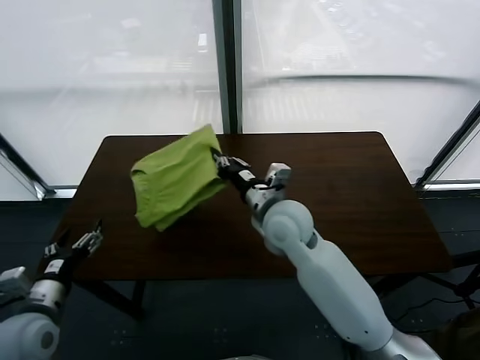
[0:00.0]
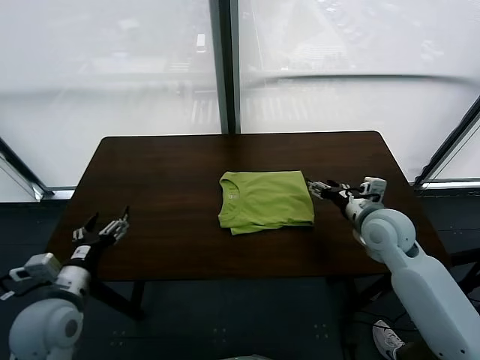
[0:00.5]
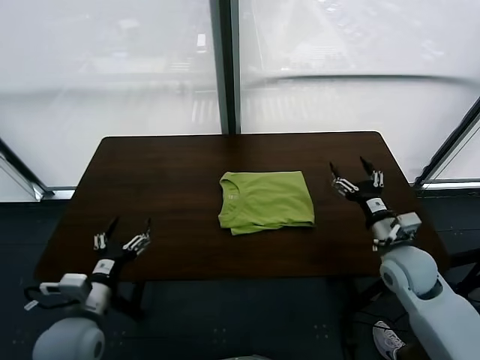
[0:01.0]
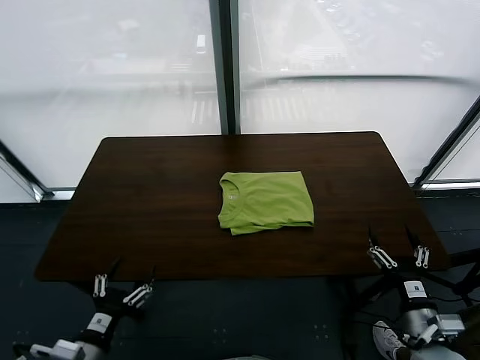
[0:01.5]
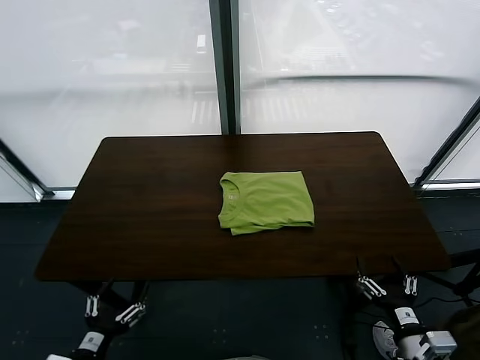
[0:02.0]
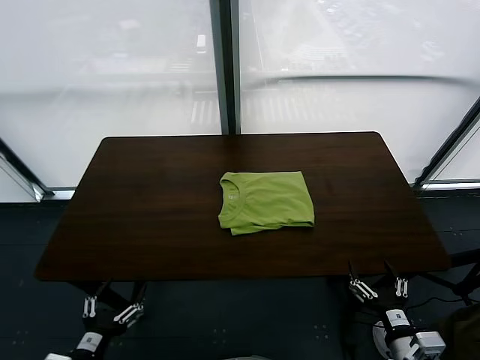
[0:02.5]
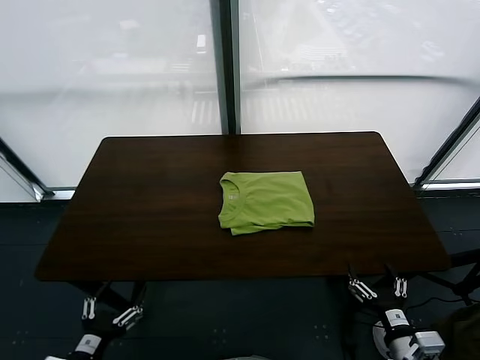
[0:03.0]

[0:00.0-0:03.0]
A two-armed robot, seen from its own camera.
Task of the whole recording: fold and organize the clothes.
0:00.0 to 0:01.5: The left gripper travels backward, downward and to the right by roughly 10 cm. Meanwhile the right gripper is displaced to the right, backward and downward by roughly 35 cm, and opens its fingers.
0:01.5 to 0:03.0: The right gripper goes some 5 cm backward.

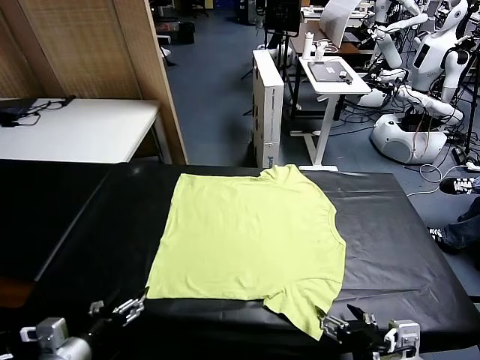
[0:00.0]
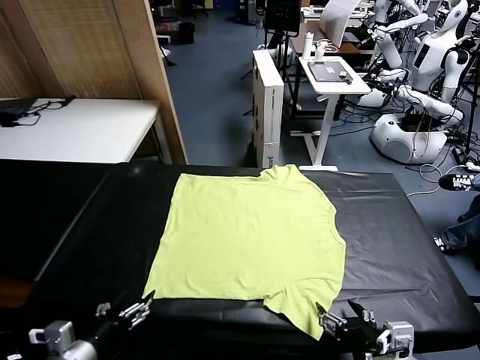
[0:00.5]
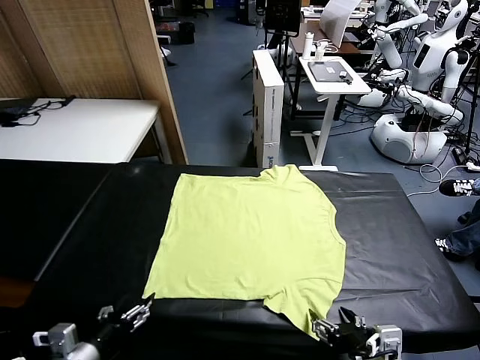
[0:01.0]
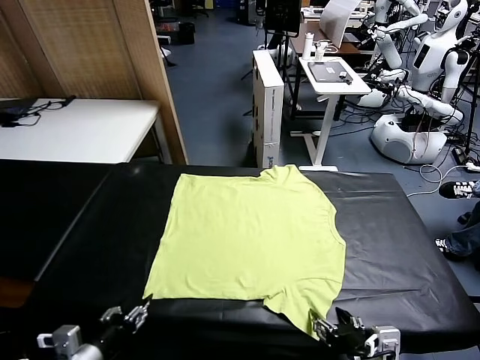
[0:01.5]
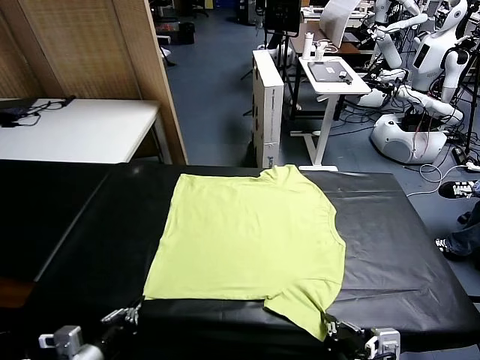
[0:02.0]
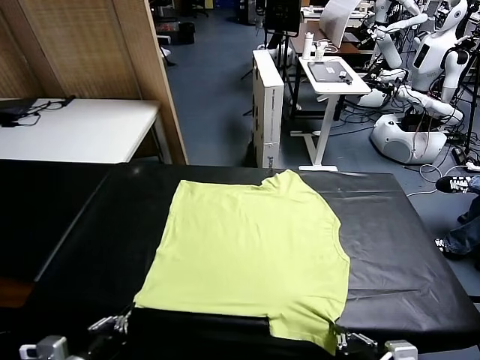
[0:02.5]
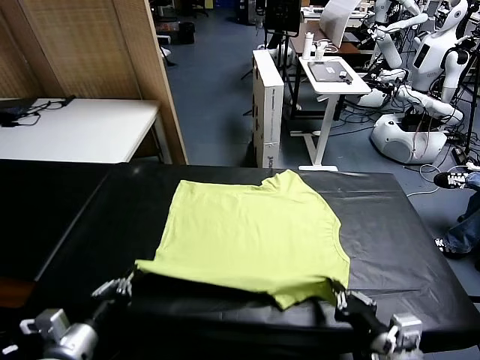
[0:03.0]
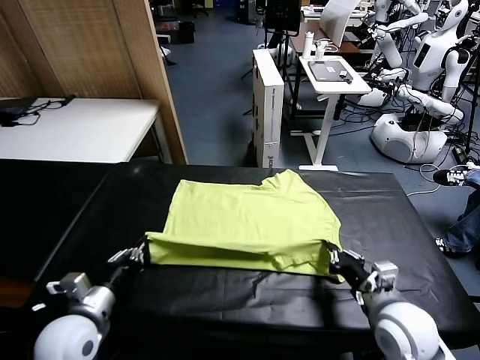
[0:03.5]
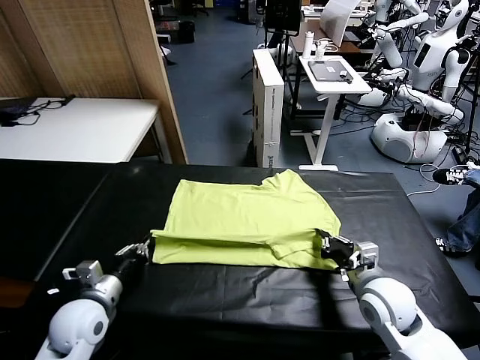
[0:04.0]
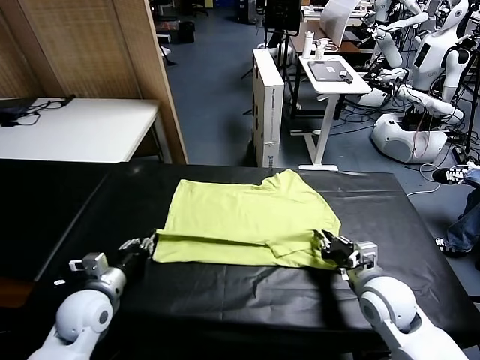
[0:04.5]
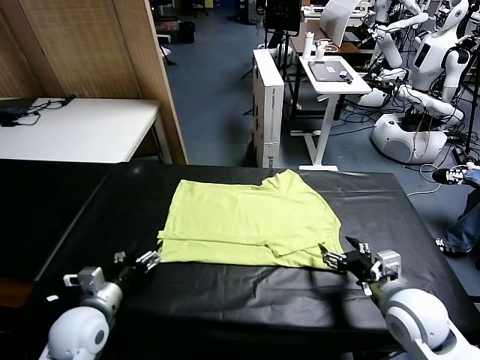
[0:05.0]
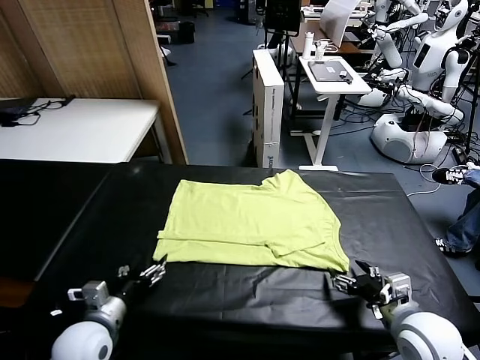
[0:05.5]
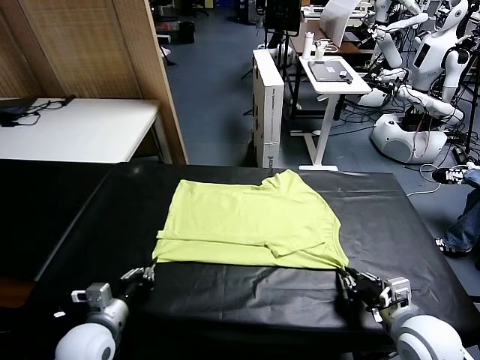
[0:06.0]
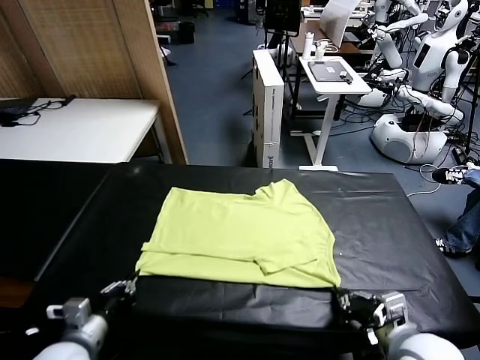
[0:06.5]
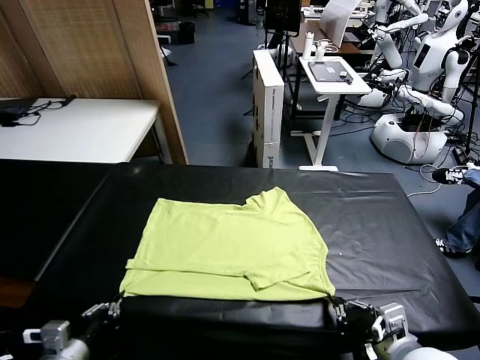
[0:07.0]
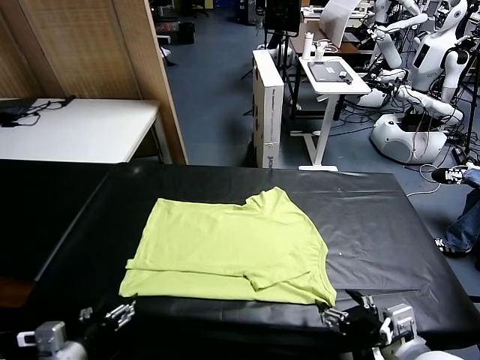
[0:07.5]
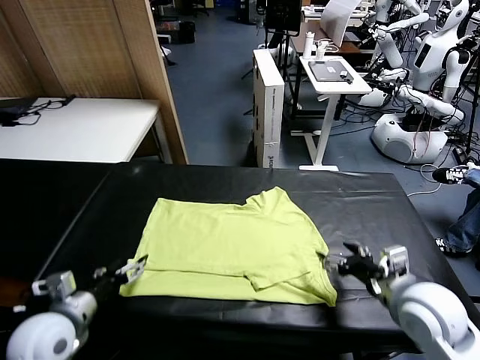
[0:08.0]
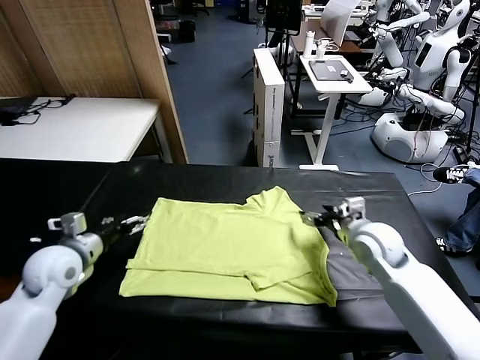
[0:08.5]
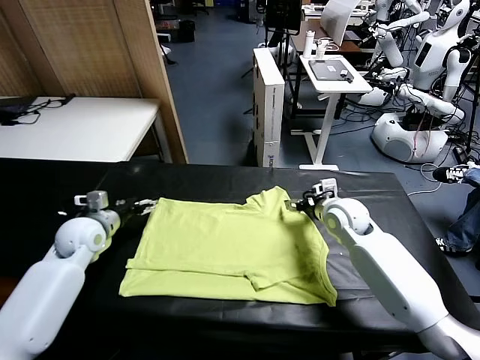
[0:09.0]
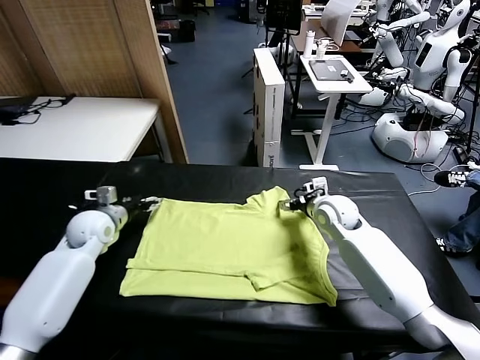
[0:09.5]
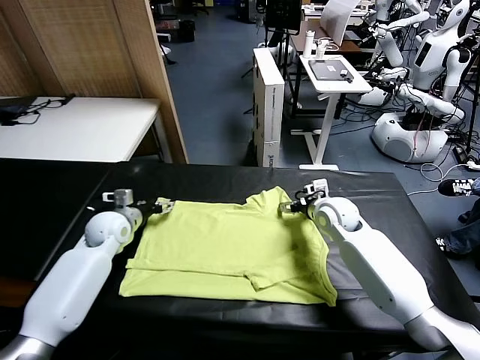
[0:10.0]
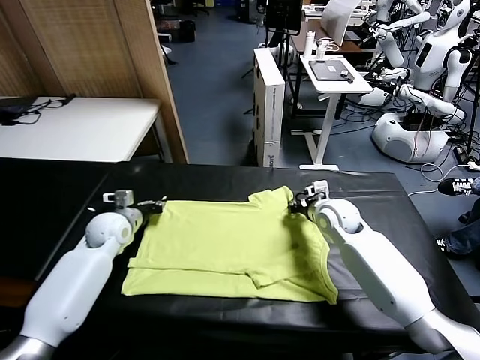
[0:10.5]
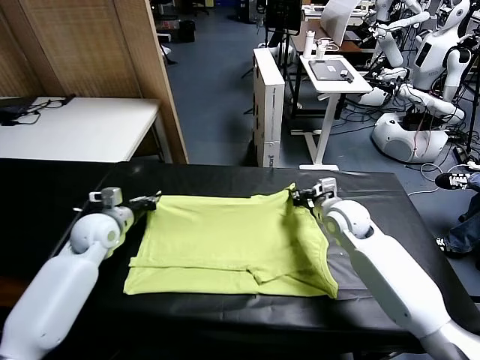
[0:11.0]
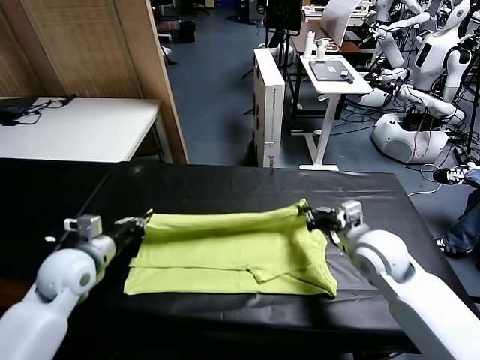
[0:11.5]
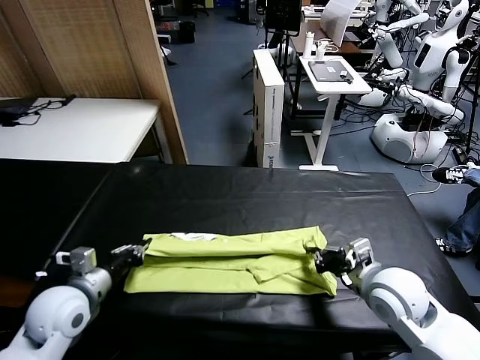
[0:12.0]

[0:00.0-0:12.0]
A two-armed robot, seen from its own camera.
Task of the whole recording: fold and organize the clothes.
Step, 0:00.0 to 0:02.0: use both grippers simultaneously to clamp the lower edge of the clothing fabric.
Step, 0:02.5 to 0:04.5: use both grippers to drag the lower edge of the fabric forward and fold it over the upper edge.
Step, 0:05.0 to 0:07.0: Drag the clothes downward with both gripper.
Step, 0:07.5 to 0:10.5: use both grippers simultaneously to clamp the upper edge of the clothing fabric.
0:02.0 to 0:04.0: Both grippers move forward, some 15 cm.
0:04.0 to 0:06.0: The left gripper is displaced backward by about 5 cm, and opens, then closes once more, while the right gripper is displaced backward by approximately 10 cm, and opens and closes again.
0:06.0 to 0:08.0: The left gripper shifts approximately 10 cm upward, goes backward and returns, approximately 10 cm each way, and opens; the right gripper goes about 15 cm forward, and opens.
0:08.0 to 0:10.0: The left gripper is displaced forward by some 20 cm, while the right gripper travels forward and to the left by some 15 cm, and closes.
0:10.0 to 0:12.0: Both grippers move backward, roughly 20 cm. The left gripper closes up.

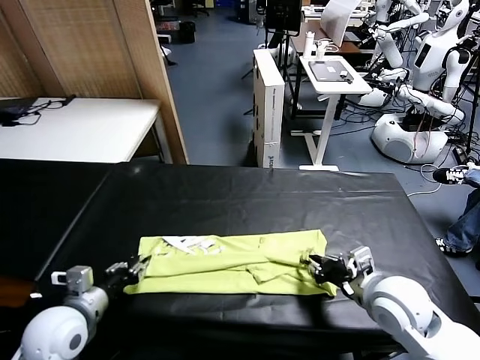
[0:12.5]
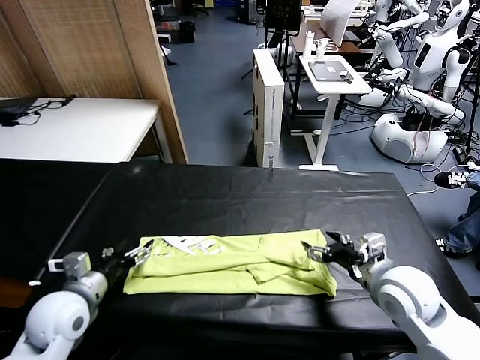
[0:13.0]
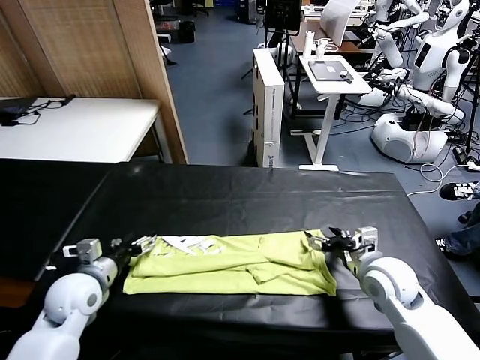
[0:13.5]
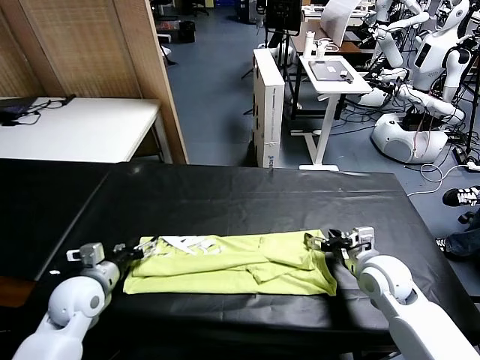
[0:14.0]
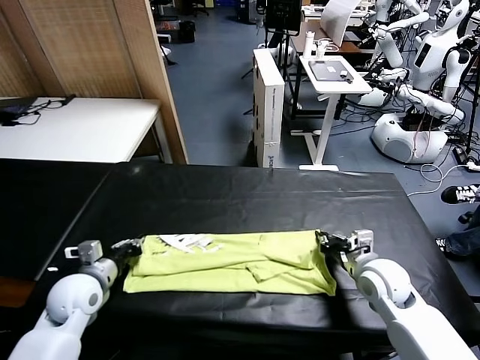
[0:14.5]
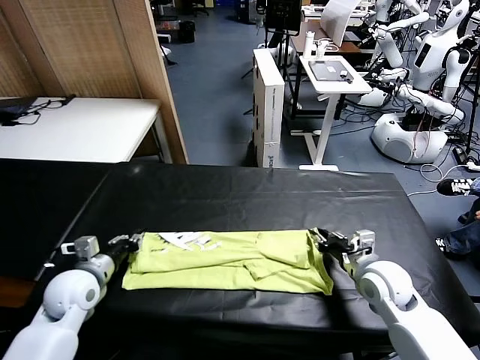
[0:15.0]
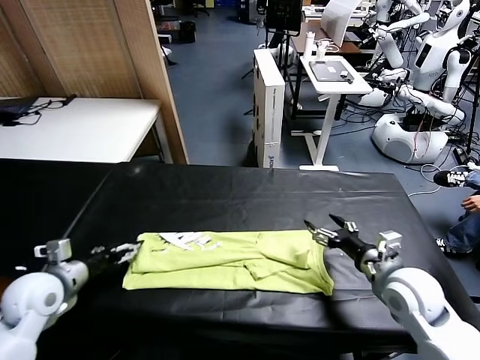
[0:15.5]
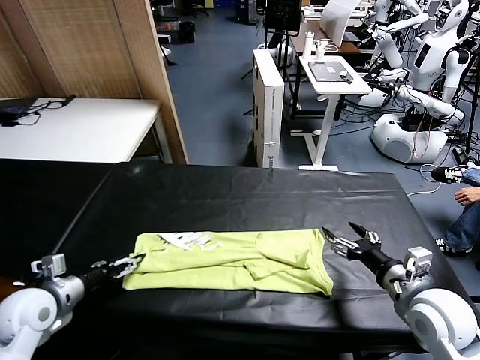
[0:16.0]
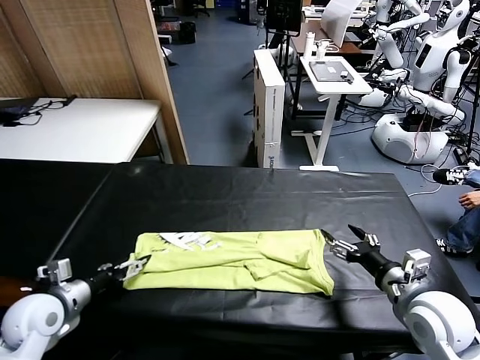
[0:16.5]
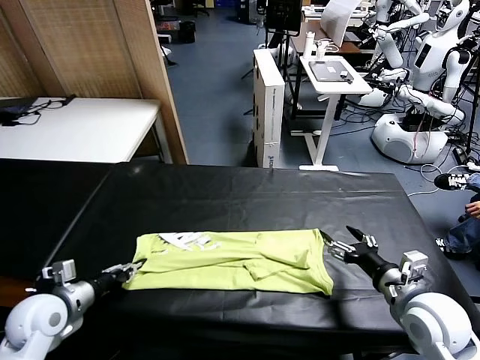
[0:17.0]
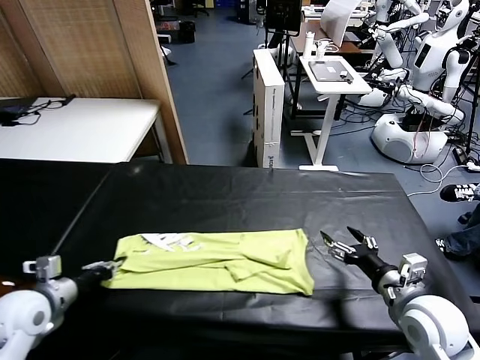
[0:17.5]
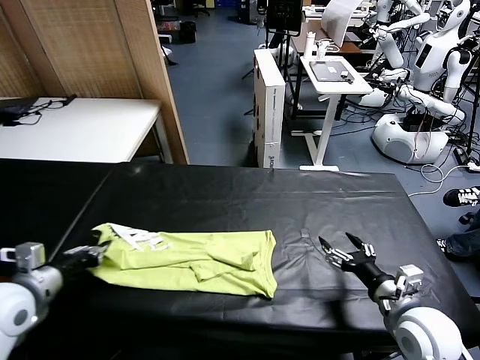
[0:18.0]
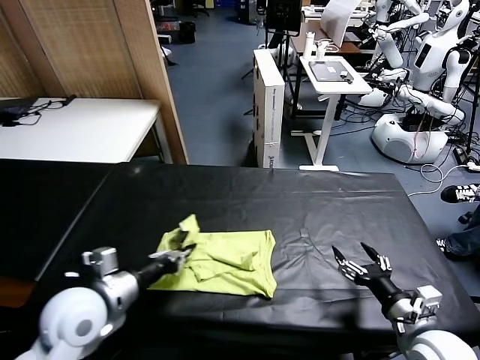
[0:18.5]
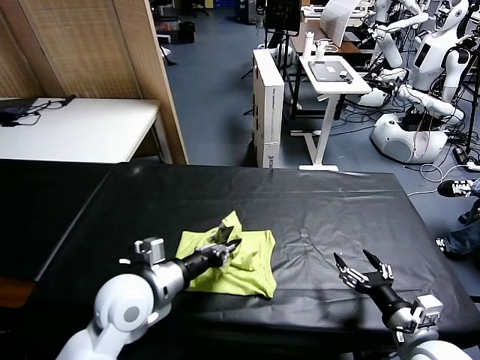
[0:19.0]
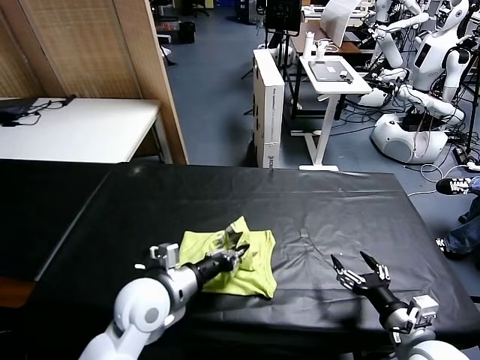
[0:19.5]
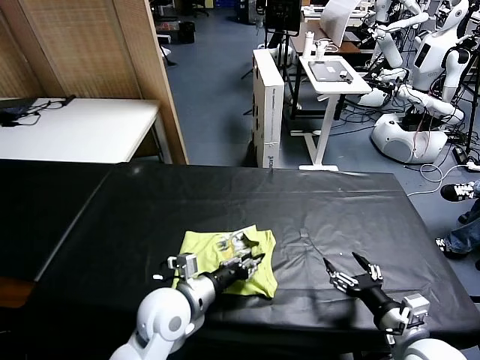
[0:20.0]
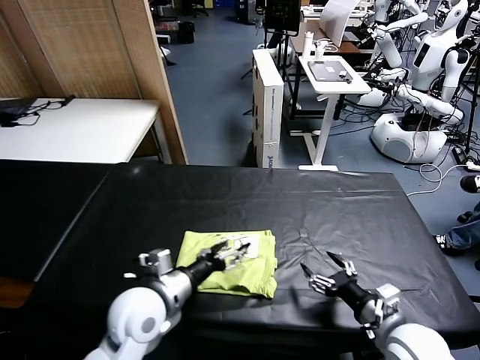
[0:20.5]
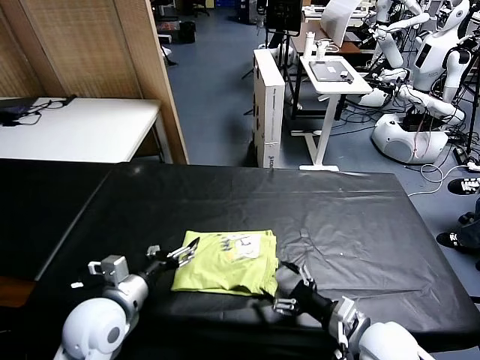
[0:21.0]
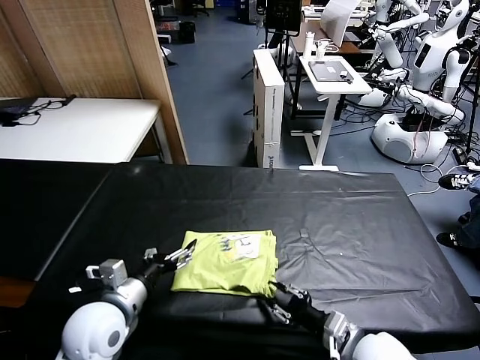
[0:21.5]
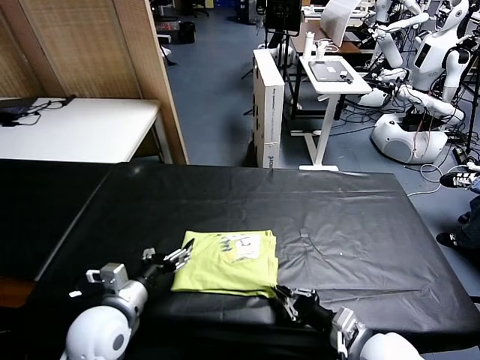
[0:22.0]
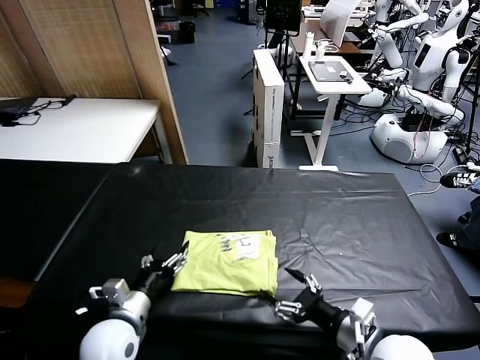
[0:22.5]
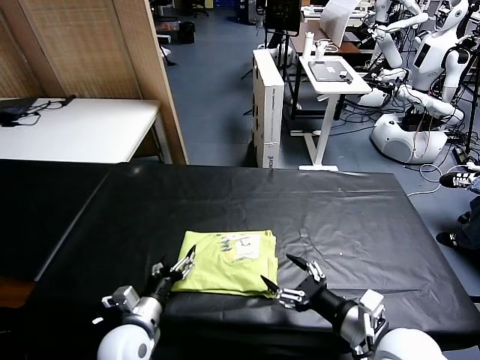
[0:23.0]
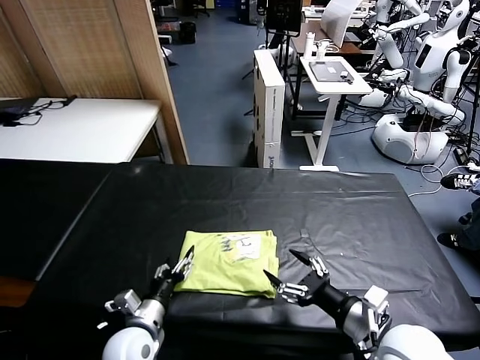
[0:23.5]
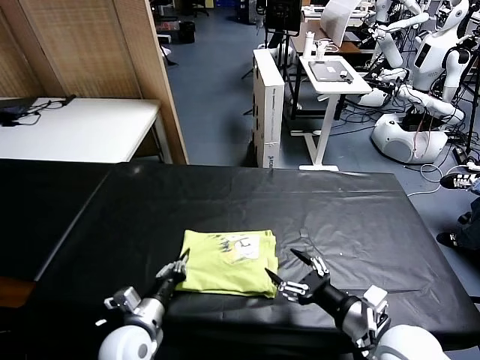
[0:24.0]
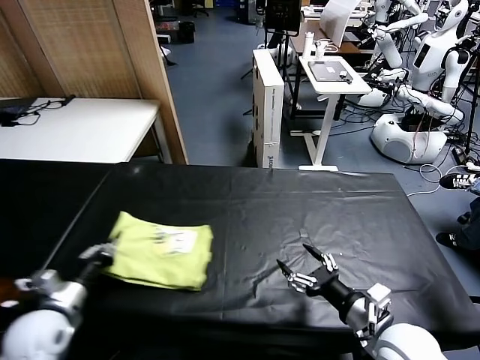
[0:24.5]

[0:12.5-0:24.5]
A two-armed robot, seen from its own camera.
Task of the whole recording: fold and organize the clothes.
Step, 0:13.0 to 0:17.0: use the left gripper to clamp the left edge of the fabric.
Step, 0:17.5 to 0:20.0: use the left gripper to drag the left edge of the fabric to the left and folds it over the right edge.
0:12.5 to 0:14.5: The left gripper heads forward, covering some 10 cm, and closes. The right gripper goes about 10 cm downward and forward, and closes its fingers.
0:14.5 to 0:16.5: The right gripper heads backward and upward, covering some 10 cm, and opens up; the left gripper goes approximately 5 cm backward, and opens its fingers.
0:16.5 to 0:18.5: The left gripper travels to the right and upward by some 15 cm, and closes its fingers. Meanwhile the right gripper goes some 5 cm backward.
0:18.5 to 0:20.5: The right gripper shifts by roughly 5 cm. Meanwhile the left gripper goes approximately 10 cm to the right, and opens its fingers.
0:20.5 to 0:22.5: The left gripper is displaced downward and to the left by approximately 10 cm; the right gripper changes place by approximately 5 cm, and closes, then opens again.
0:22.5 to 0:24.5: The left gripper travels to the left by roughly 10 cm, and closes.
